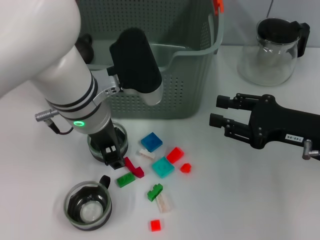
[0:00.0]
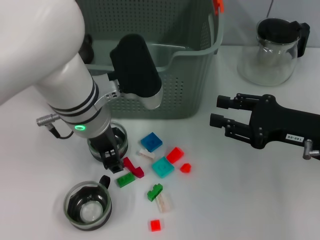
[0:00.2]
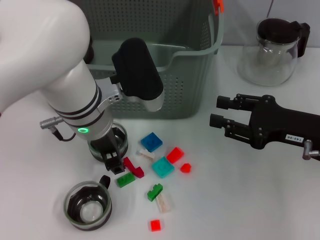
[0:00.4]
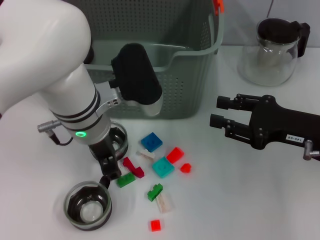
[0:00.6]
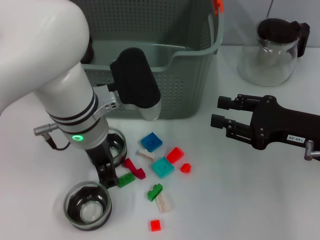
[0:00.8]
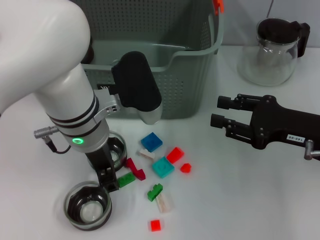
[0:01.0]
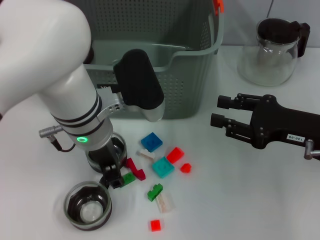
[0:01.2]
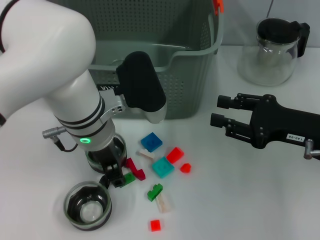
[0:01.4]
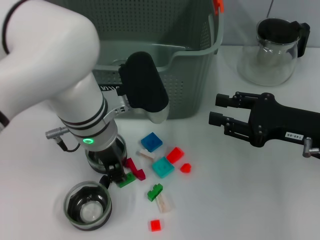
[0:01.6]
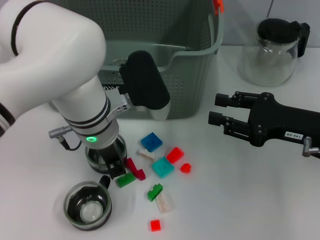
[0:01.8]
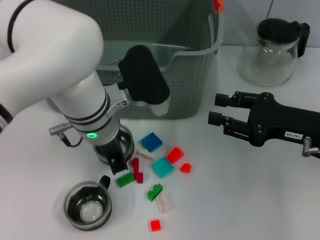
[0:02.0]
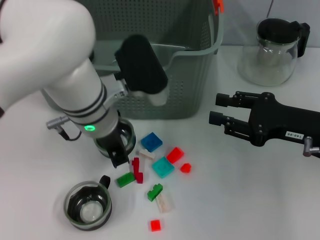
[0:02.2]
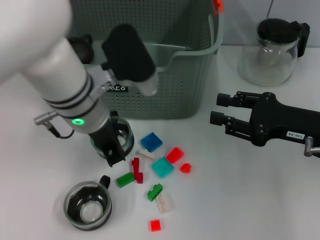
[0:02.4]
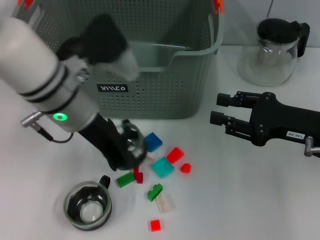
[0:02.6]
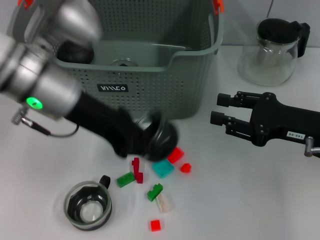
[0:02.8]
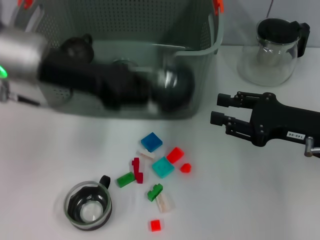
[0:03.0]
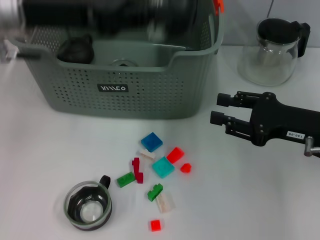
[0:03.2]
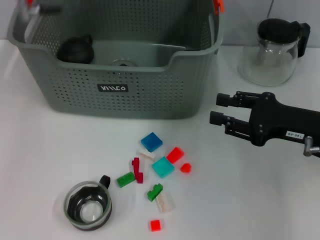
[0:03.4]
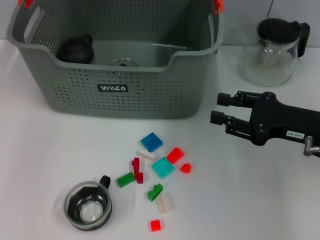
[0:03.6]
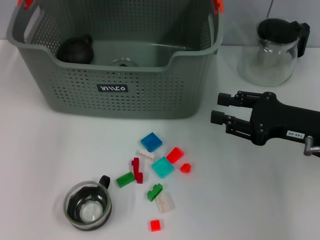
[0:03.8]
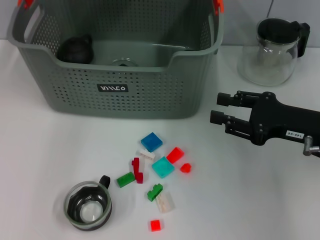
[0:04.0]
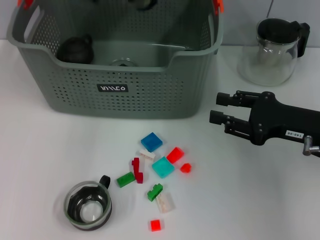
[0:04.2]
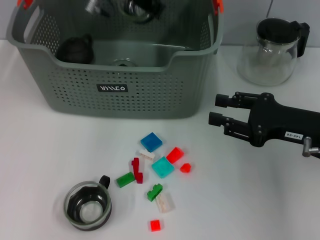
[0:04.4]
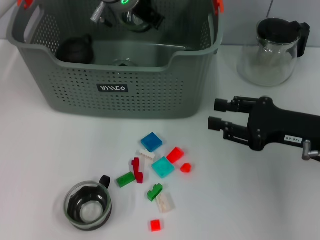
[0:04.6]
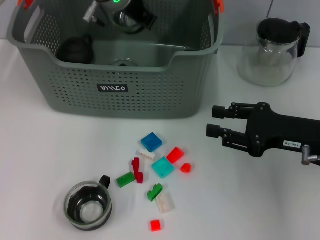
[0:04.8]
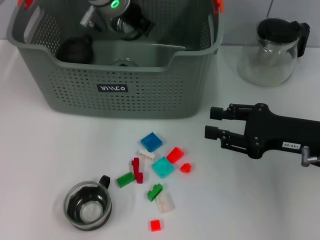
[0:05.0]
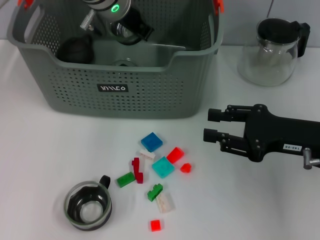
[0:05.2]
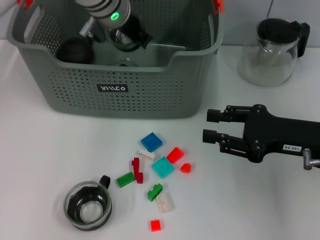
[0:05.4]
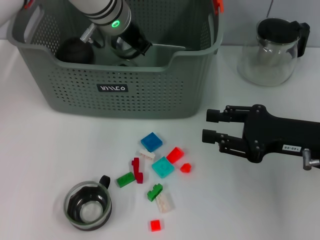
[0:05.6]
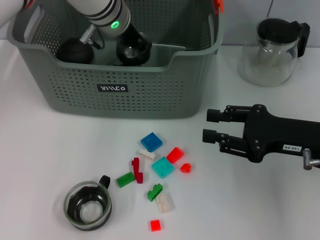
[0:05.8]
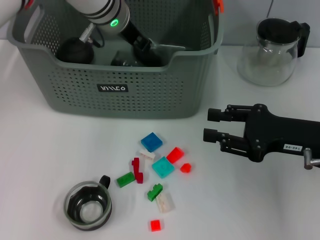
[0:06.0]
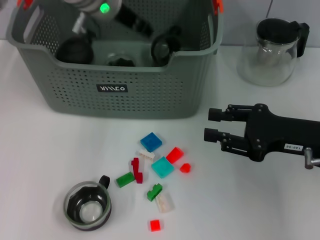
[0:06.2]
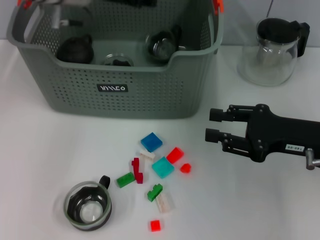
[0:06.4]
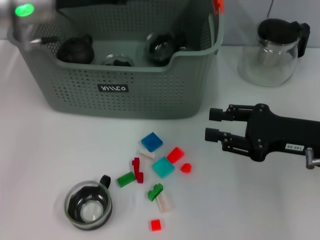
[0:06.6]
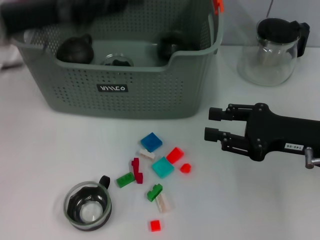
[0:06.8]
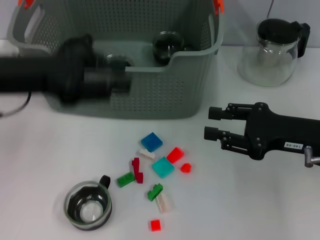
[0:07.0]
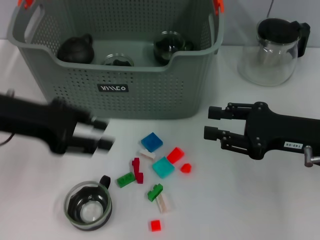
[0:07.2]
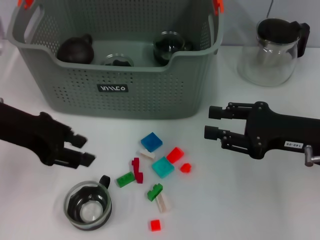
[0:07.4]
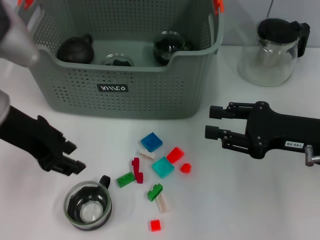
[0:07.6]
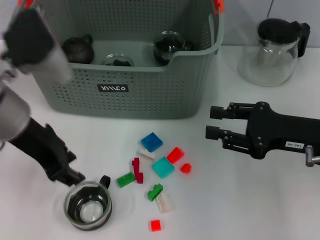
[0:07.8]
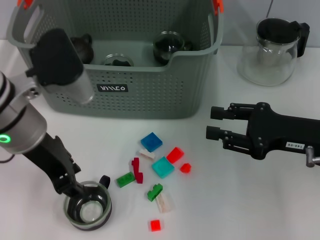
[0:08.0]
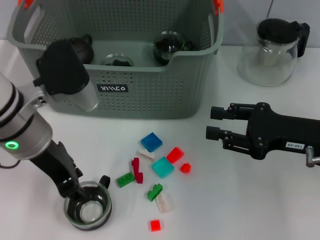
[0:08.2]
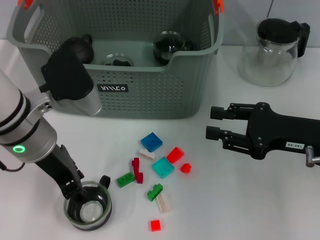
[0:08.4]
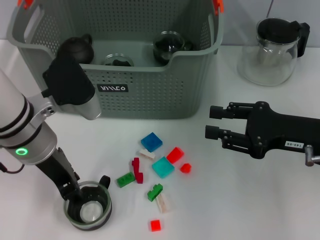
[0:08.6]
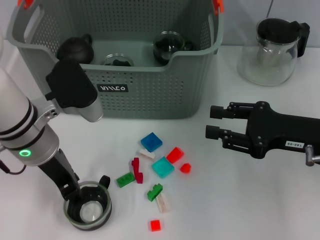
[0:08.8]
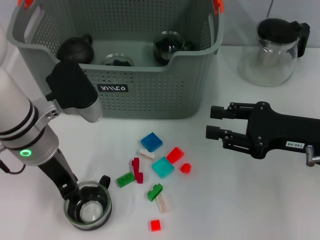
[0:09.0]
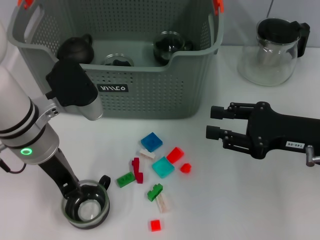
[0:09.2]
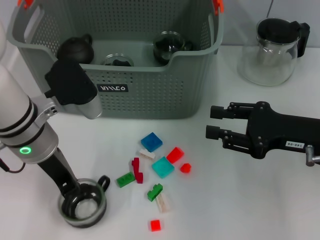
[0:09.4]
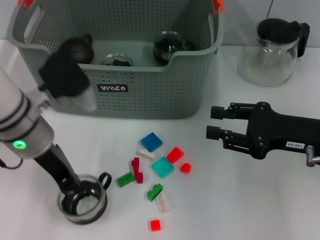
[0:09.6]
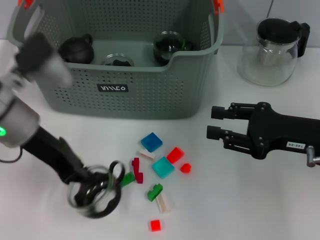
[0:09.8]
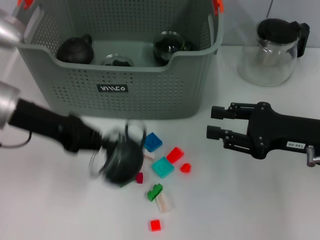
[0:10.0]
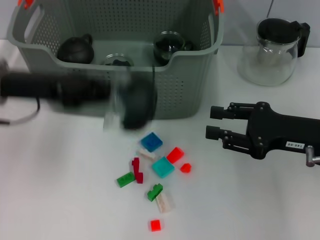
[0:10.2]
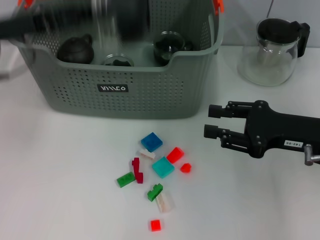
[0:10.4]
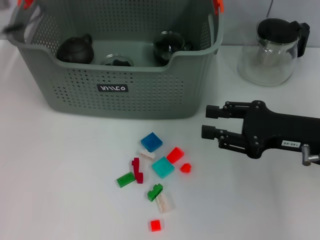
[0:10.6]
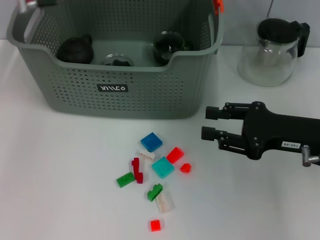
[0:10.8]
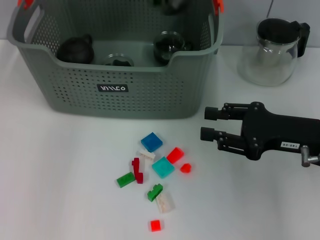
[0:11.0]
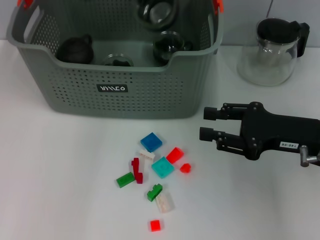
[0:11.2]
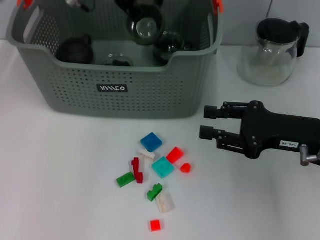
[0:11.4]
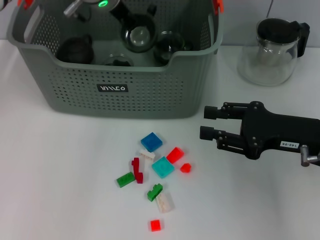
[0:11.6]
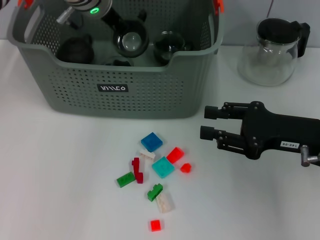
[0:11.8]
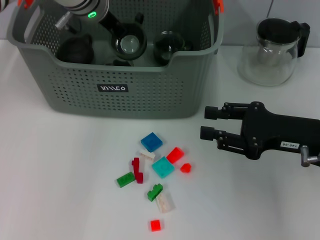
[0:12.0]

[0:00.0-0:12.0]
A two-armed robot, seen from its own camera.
Task of the whole recording: pick up the teacup on the table and place it into the storage bin, pick up the block on the table and place it into the storage bin.
Step, 0:02.0 to 0:06.4: Place the cup in the storage box with left gripper.
Step, 0:06.6 to 0:09.6: Grasp the cup with left gripper.
0:00.0 to 0:01.6: The grippers stay close to where they were, moving slightly.
0:01.6 to 0:03.0: The left gripper is displaced to the left and upward by some 15 cm, and closes.
0:03.0 to 0:04.4: The left gripper heads forward and to the right, covering some 20 cm.
0:04.4 to 0:06.0: The grippers stay close to where they were, moving slightly.
0:06.0 to 0:07.6: The left gripper travels backward and to the left by some 20 cm, and opens.
0:07.6 to 0:09.0: The left gripper shifts roughly 5 cm downward.
0:09.0 to 0:10.4: The left gripper heads to the left and upward, covering approximately 10 cm, and closes up.
0:10.4 to 0:12.0: The left gripper goes about 20 cm to the right and forward.

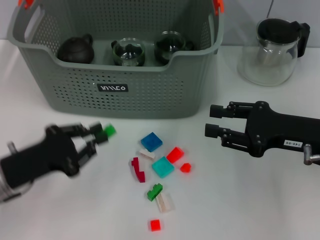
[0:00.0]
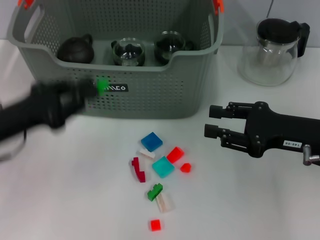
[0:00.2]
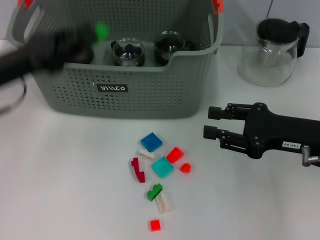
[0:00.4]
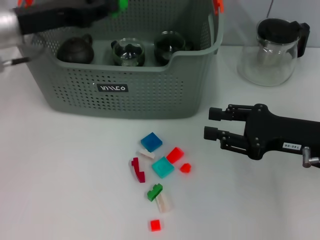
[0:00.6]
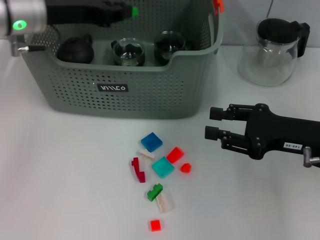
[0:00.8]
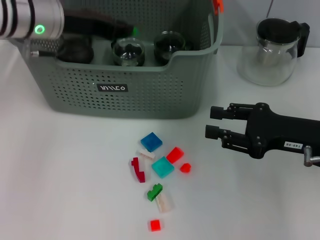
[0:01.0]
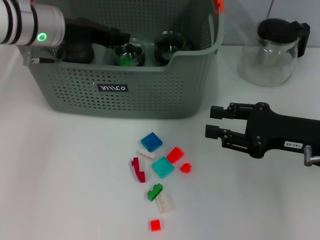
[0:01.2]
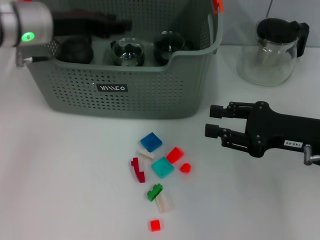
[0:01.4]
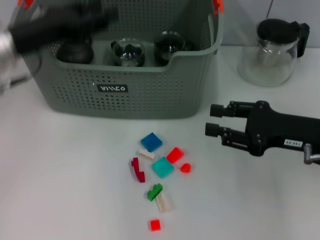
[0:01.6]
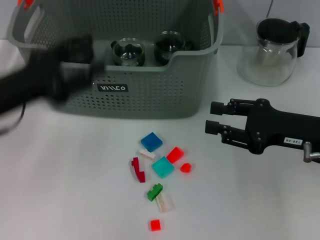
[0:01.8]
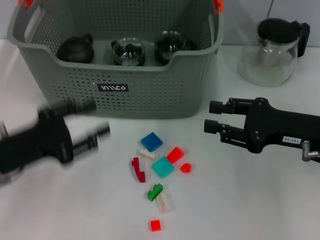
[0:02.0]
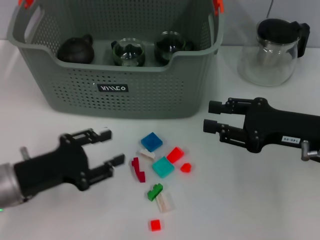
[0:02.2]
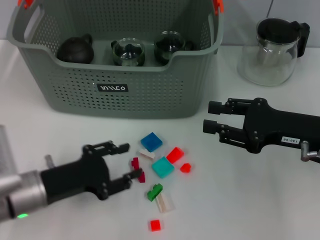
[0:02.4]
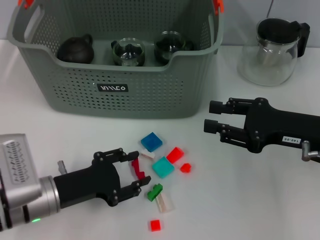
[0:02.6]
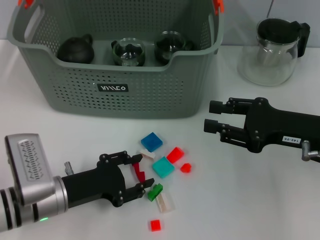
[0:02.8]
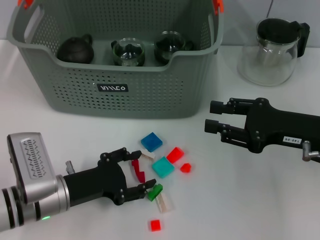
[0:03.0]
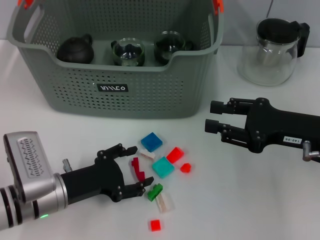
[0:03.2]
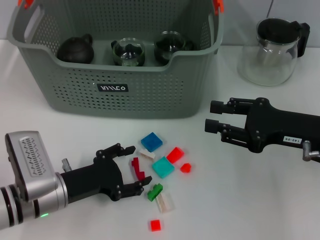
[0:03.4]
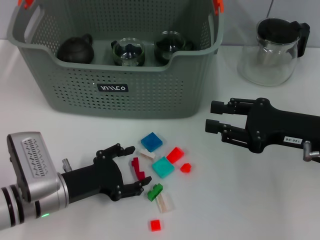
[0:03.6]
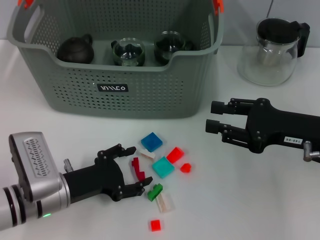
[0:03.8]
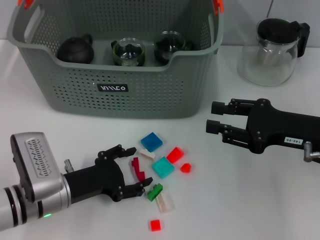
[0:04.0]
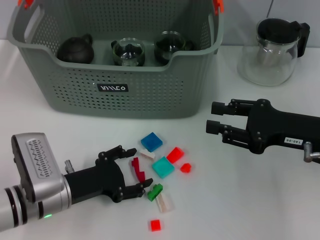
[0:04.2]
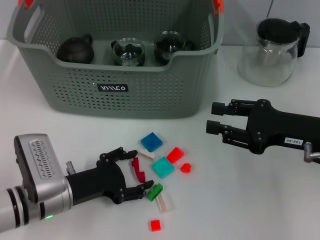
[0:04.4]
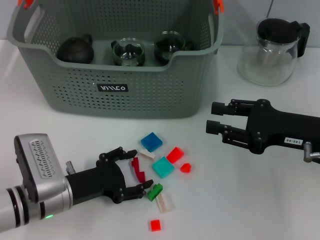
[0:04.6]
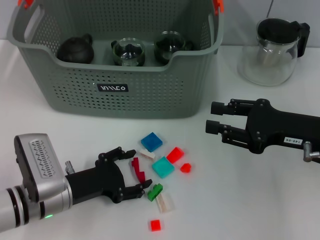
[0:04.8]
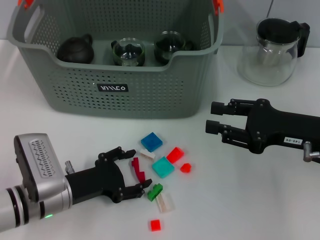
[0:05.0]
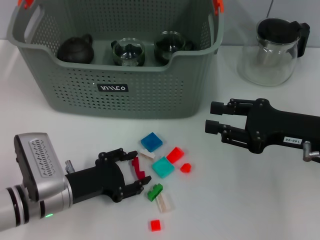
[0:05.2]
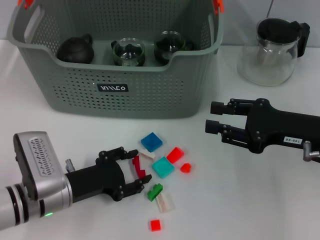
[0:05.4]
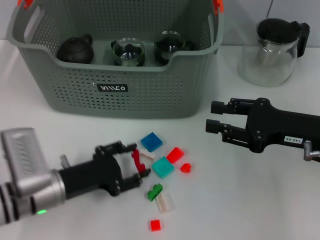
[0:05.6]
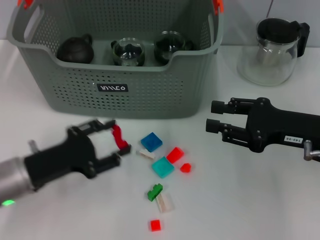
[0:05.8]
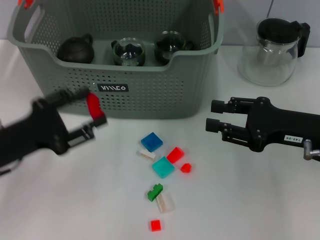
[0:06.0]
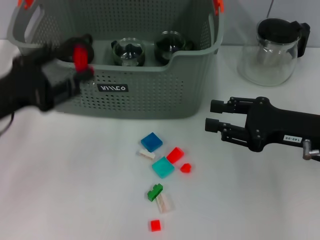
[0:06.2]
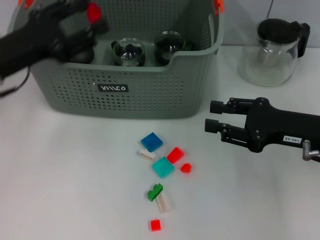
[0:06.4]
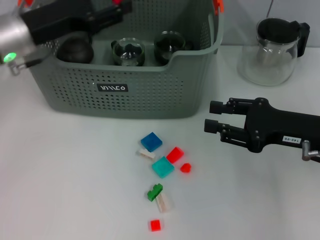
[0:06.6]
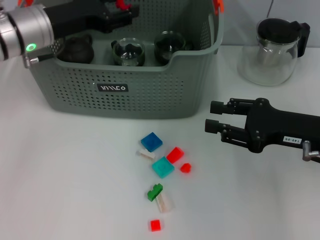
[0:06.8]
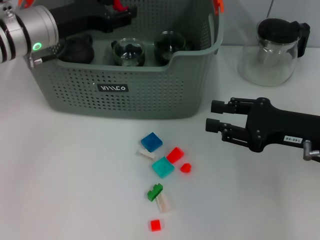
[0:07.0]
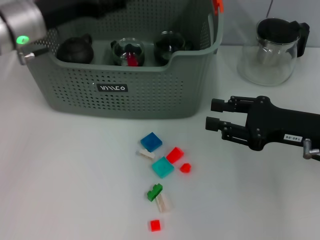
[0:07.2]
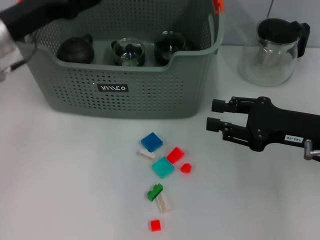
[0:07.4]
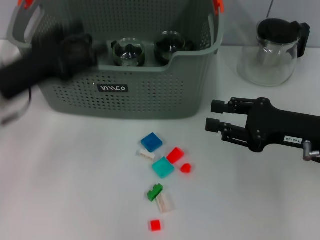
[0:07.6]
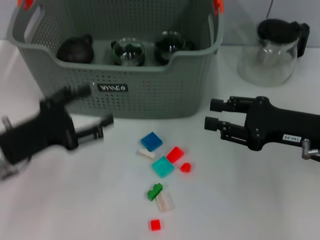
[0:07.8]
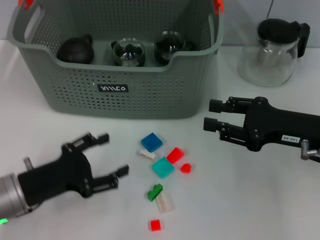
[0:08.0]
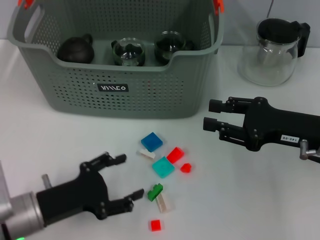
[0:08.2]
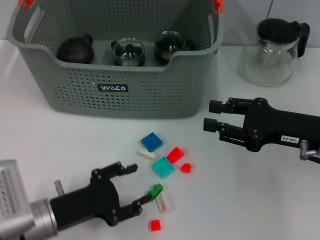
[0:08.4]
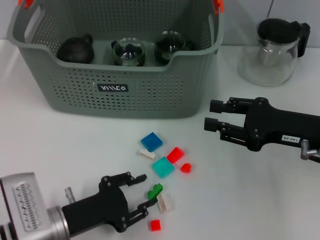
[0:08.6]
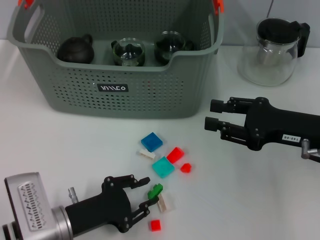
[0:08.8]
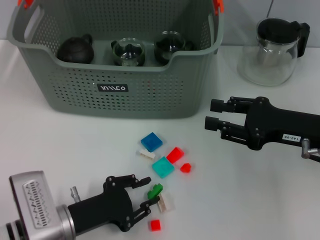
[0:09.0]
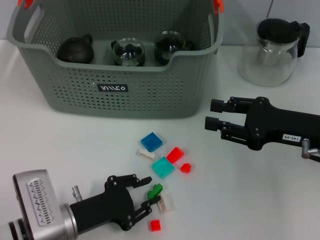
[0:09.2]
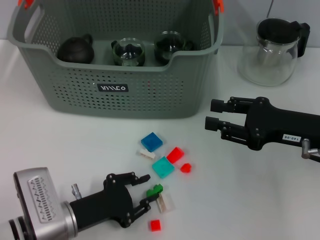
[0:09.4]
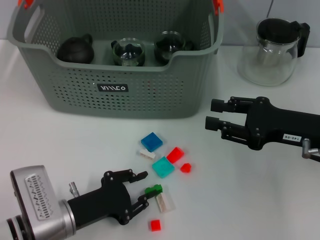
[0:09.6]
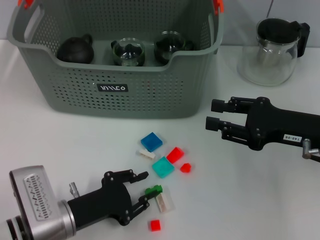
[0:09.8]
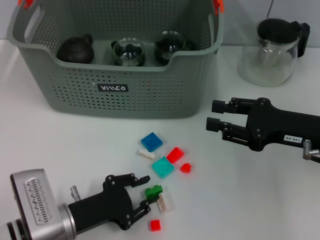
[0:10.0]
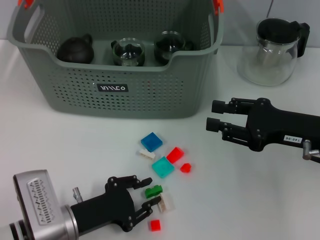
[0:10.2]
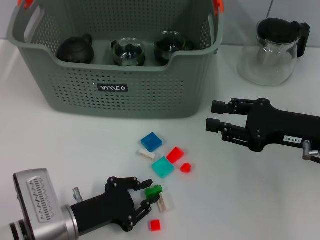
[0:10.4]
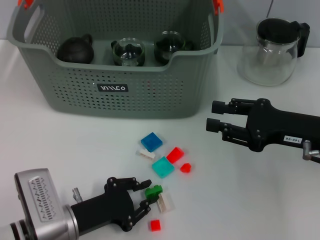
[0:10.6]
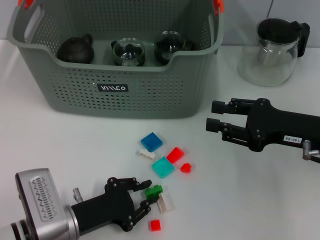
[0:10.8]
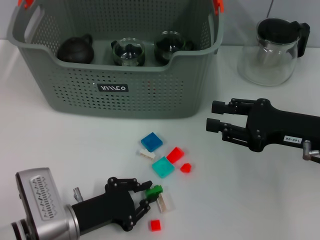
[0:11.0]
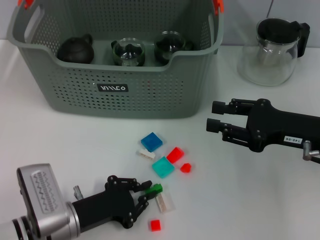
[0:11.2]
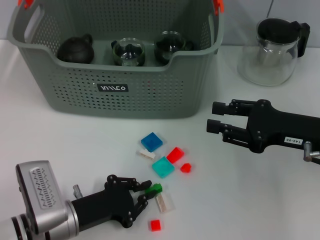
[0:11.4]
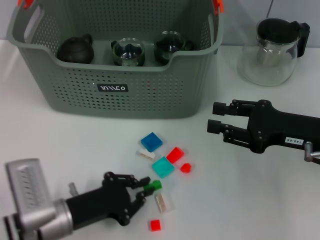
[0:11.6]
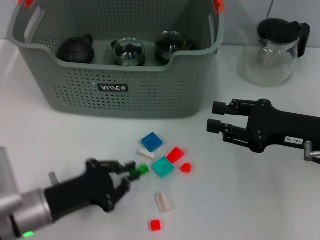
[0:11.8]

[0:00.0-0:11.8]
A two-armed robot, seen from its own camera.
Task of the whole recording: pick up the teacup on the table and place it into the storage bin, pick up the block on the table and place it into the storage bin.
Step, 0:00.0 to 0:01.6: Place the green block in the storage box with left gripper.
Step, 0:01.8 to 0:05.4: Grasp the red block with left gripper.
Step, 0:05.8 to 0:07.6: Place the red block in the storage box with left gripper.
Step, 0:07.8 to 0:11.4: Grasp the green block with left gripper.
0:00.0 to 0:01.4: The left gripper is displaced forward and upward by some 20 cm.
0:01.4 to 0:03.0: The left gripper goes about 25 cm downward and backward.
0:03.0 to 0:04.4: The two grippers keep their place.
0:04.4 to 0:06.0: The left gripper goes roughly 10 cm upward and to the left.
0:06.0 to 0:07.4: The left gripper heads forward and upward, covering approximately 15 cm.
0:07.4 to 0:08.8: The left gripper is displaced downward and backward by roughly 25 cm.
0:08.8 to 0:10.4: The two grippers keep their place.
0:10.4 to 0:11.8: The grippers make only small movements.
